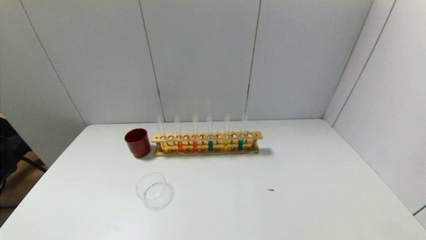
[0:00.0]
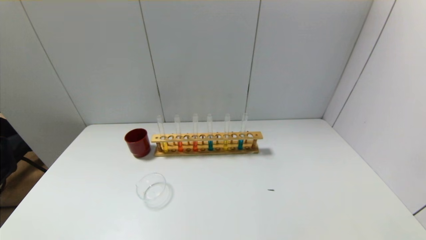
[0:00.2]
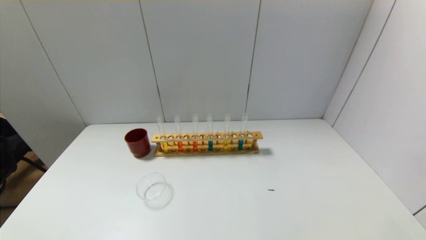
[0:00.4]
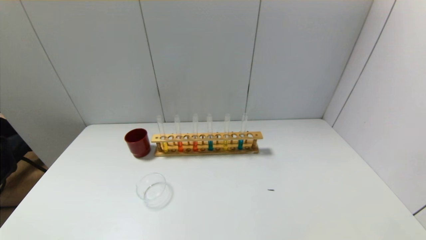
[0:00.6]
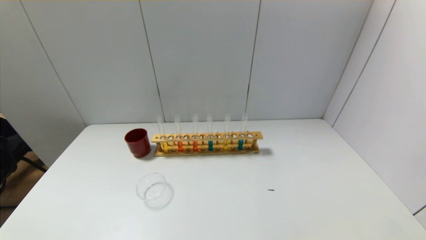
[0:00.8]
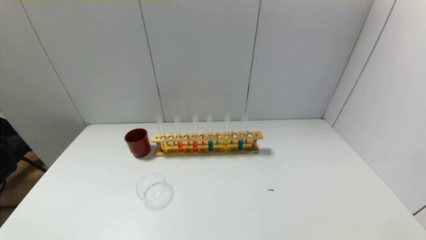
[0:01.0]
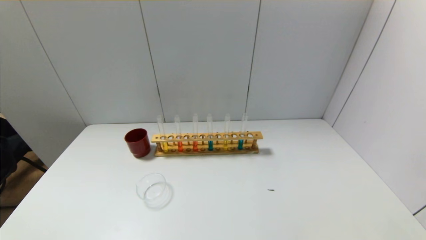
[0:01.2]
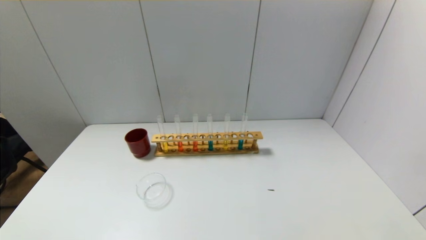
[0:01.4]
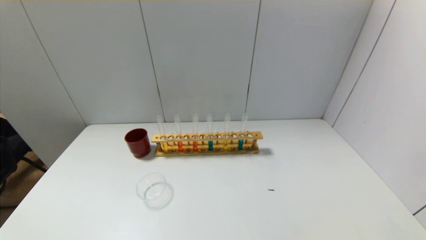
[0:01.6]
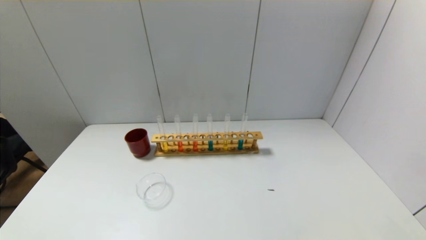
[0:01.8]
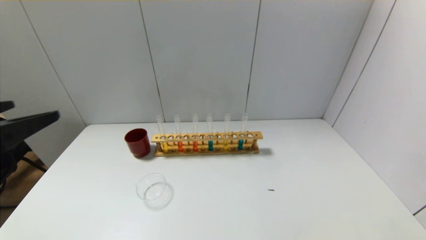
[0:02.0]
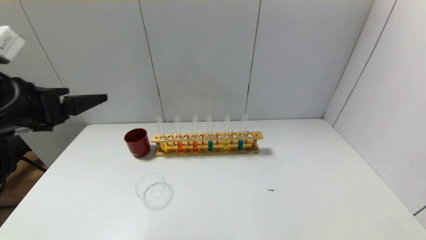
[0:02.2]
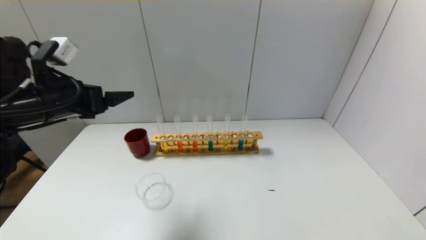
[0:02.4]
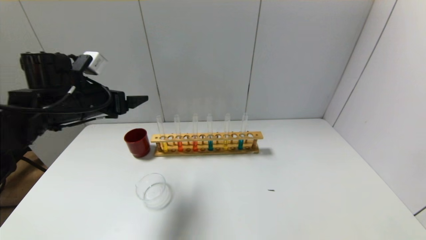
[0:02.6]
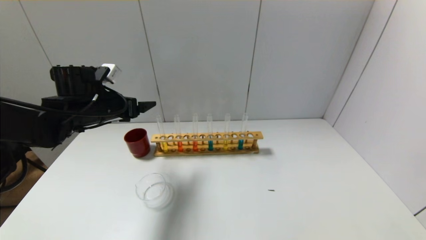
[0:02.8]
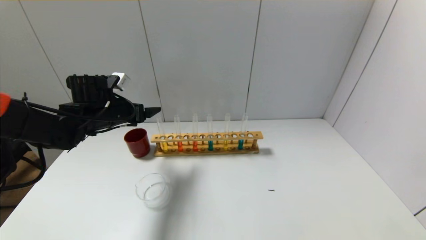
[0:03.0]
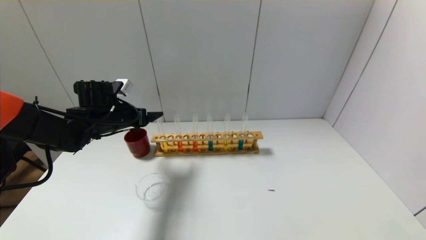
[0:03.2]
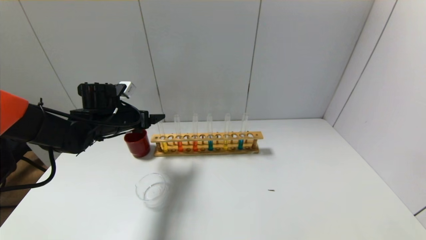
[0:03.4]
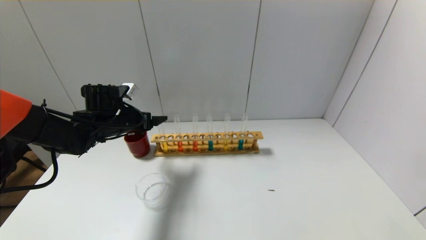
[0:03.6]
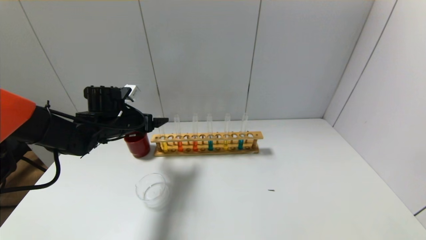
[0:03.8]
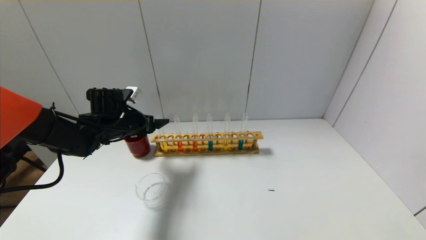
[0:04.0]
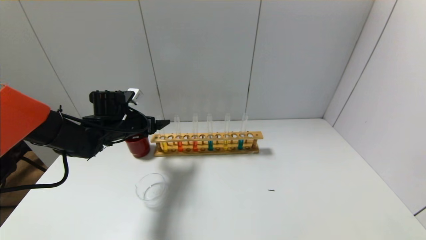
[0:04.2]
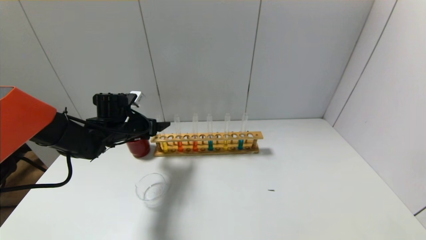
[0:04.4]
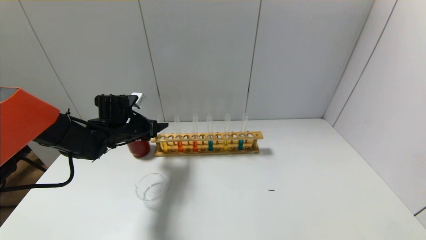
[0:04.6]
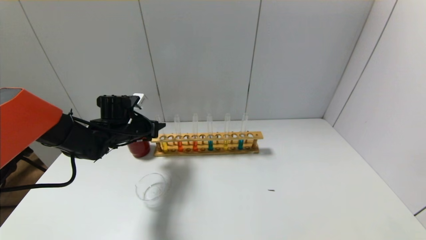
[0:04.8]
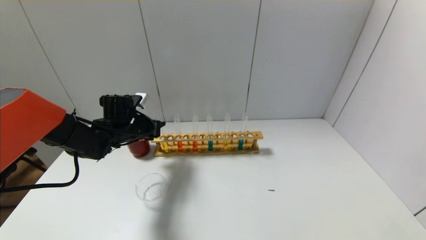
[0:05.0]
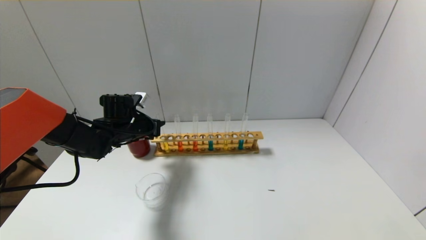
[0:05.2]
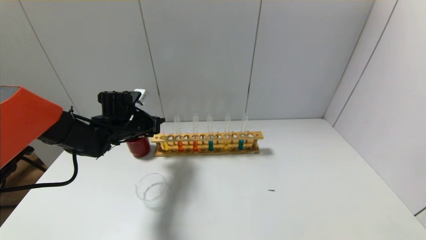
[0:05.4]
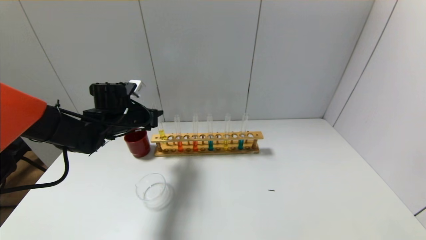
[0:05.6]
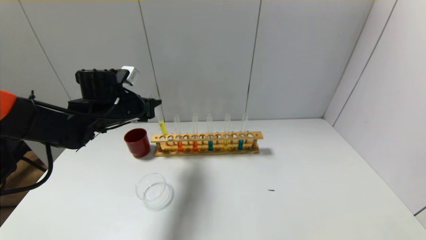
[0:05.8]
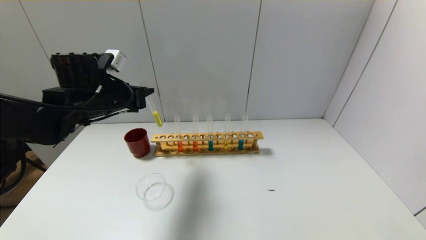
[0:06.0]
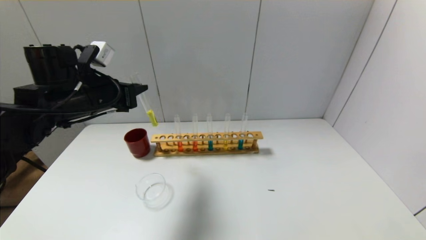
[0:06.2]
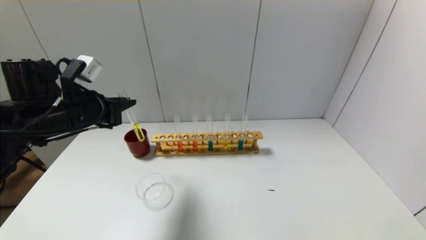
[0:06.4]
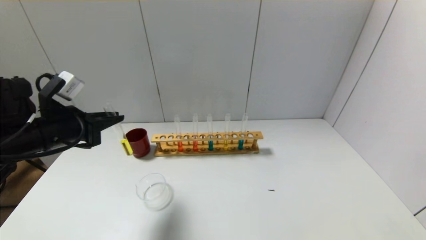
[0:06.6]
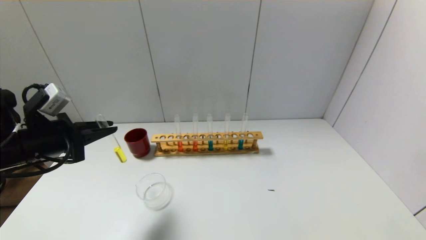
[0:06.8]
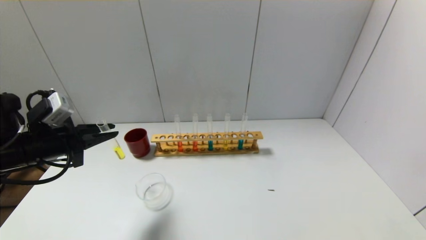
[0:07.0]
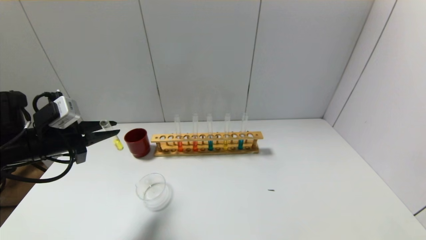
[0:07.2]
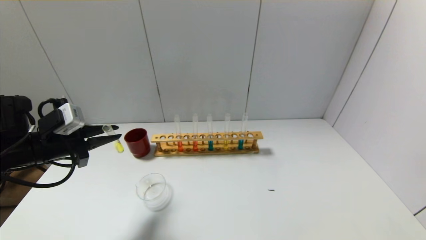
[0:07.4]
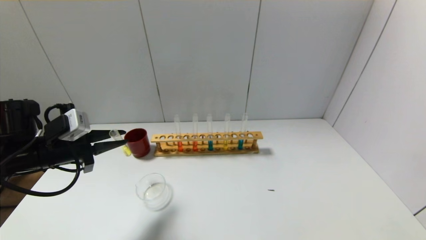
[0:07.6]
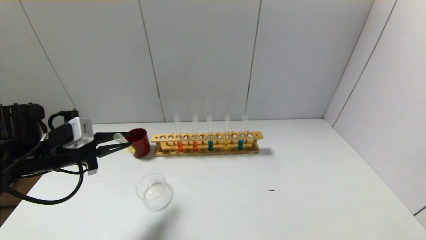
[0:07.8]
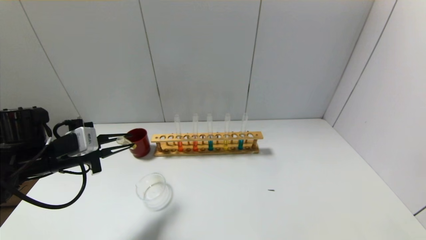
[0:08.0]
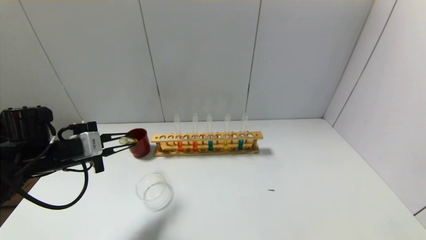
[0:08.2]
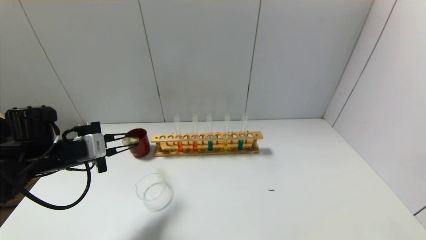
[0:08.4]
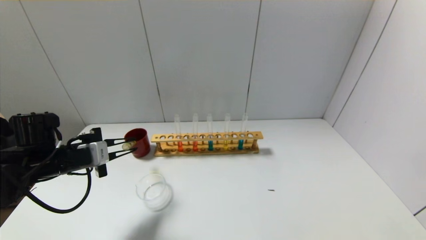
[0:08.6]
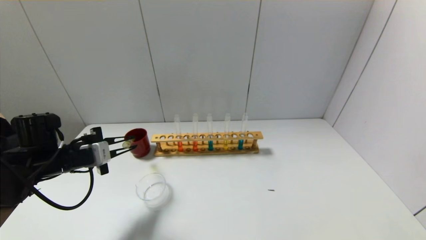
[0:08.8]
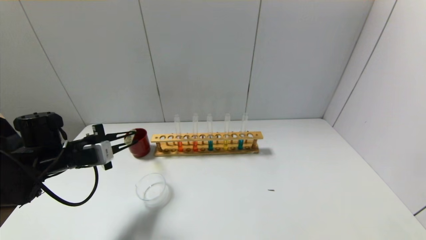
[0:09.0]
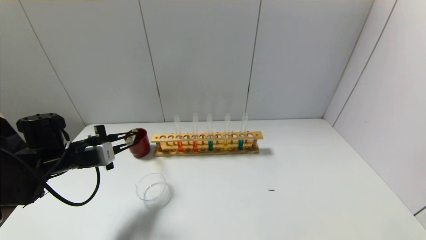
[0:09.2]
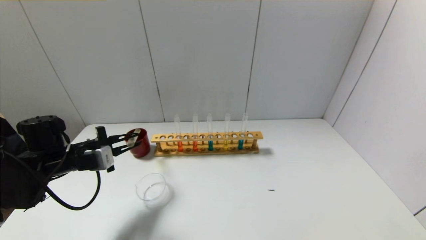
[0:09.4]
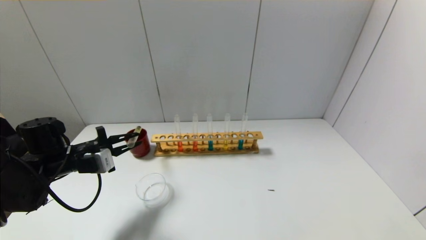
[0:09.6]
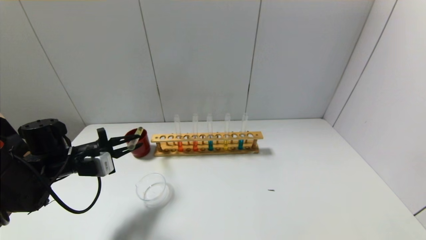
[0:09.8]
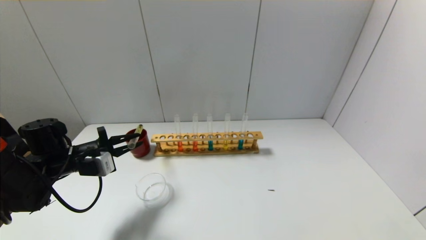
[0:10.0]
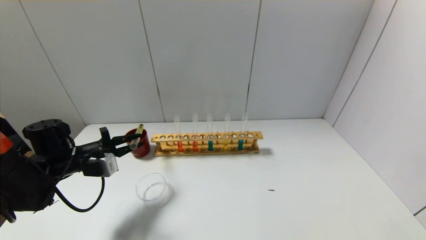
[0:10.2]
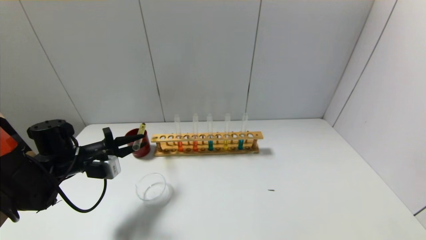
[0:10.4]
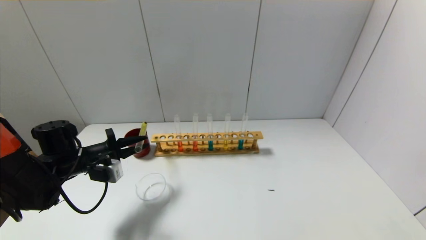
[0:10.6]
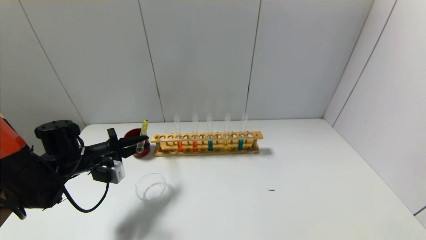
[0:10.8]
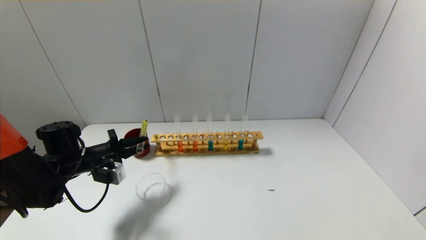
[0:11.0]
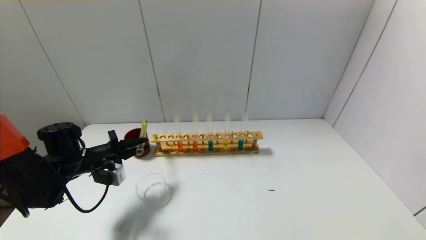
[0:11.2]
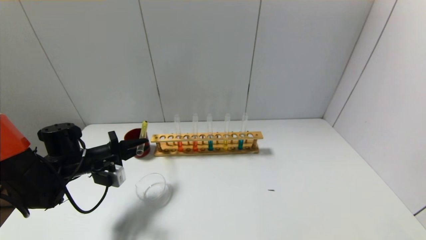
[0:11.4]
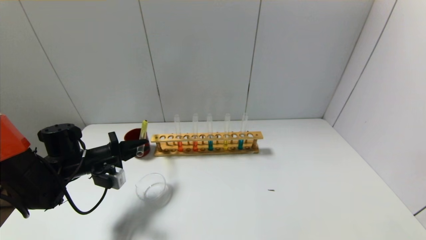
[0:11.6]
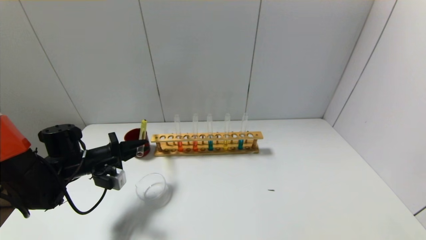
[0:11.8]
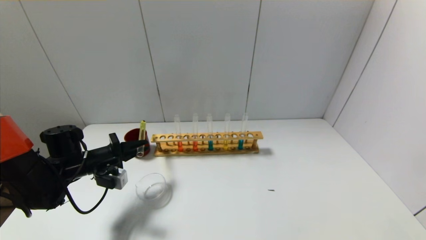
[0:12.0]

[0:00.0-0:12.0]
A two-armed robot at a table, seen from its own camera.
Step, 0:00.0 to 0:05.0: Grasp the yellow reagent with the left gripper.
0:01.6 to 0:03.0: The left gripper travels forward by some 40 cm.
0:03.0 to 0:04.4: The left gripper shifts by roughly 5 cm.
0:04.4 to 0:06.0: The left gripper travels upward and backward by about 10 cm, and closes up.
0:06.0 to 0:07.6: The left gripper goes approximately 15 cm to the left, backward and downward.
0:07.6 to 0:09.0: The left gripper changes place by roughly 5 cm.
0:09.0 to 0:10.4: The grippers move only a little.
0:10.4 to 0:12.0: There are only small adjustments of the grippers.

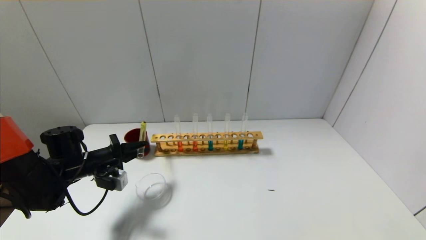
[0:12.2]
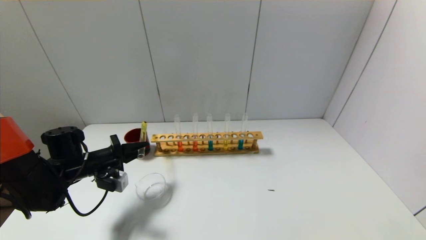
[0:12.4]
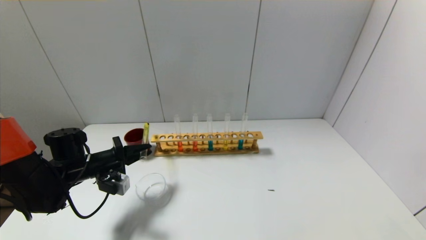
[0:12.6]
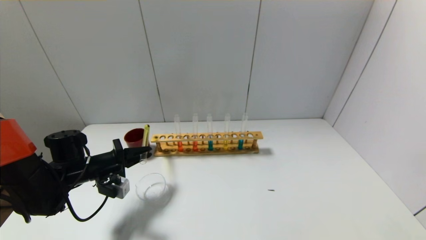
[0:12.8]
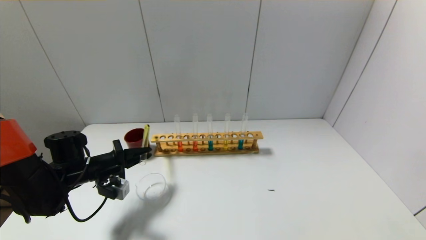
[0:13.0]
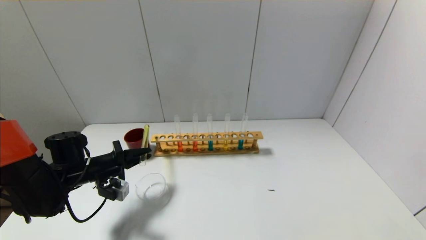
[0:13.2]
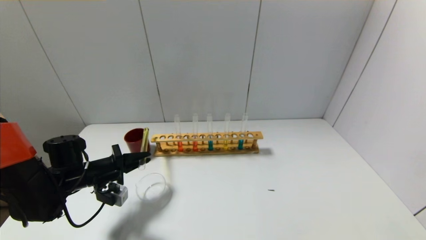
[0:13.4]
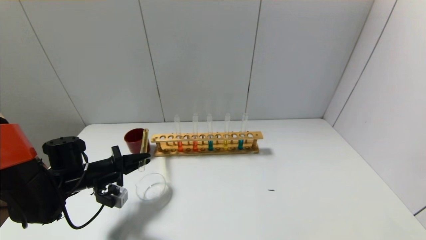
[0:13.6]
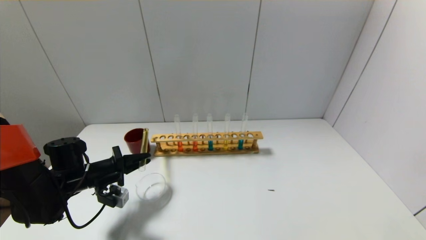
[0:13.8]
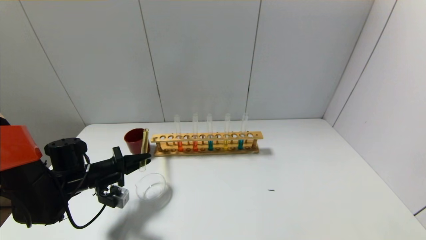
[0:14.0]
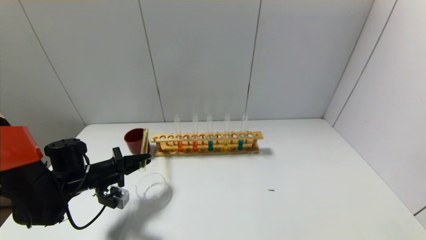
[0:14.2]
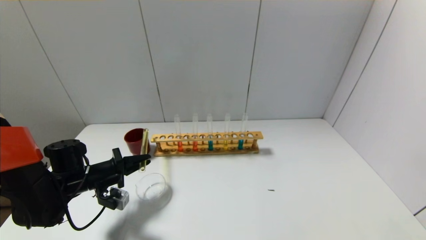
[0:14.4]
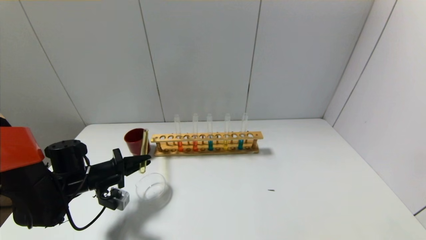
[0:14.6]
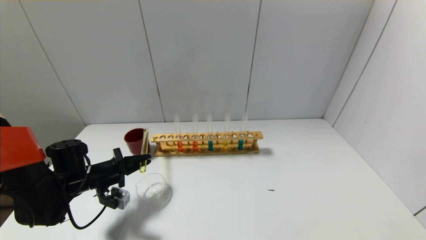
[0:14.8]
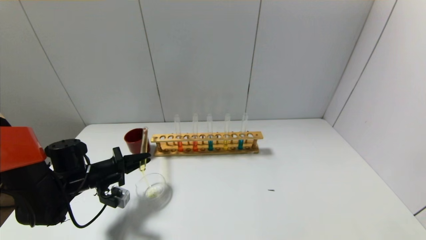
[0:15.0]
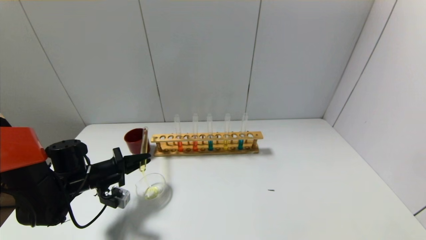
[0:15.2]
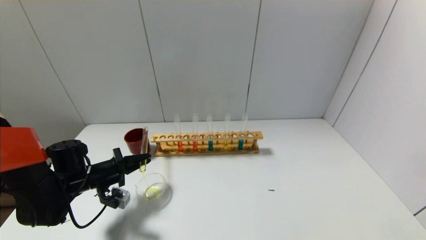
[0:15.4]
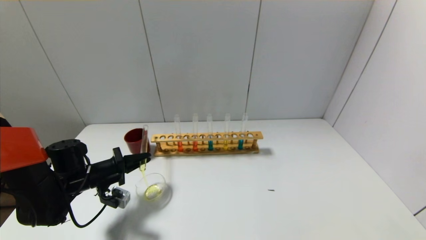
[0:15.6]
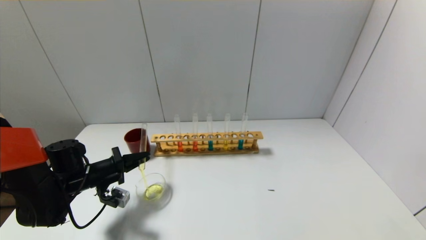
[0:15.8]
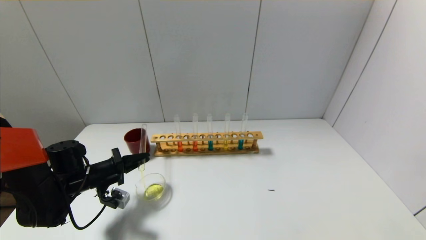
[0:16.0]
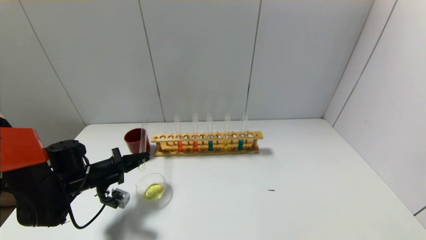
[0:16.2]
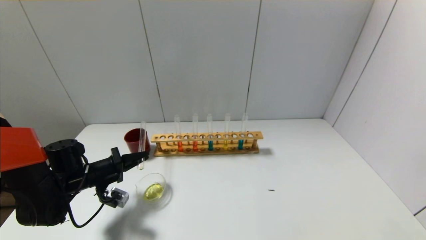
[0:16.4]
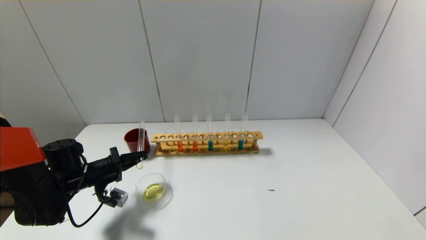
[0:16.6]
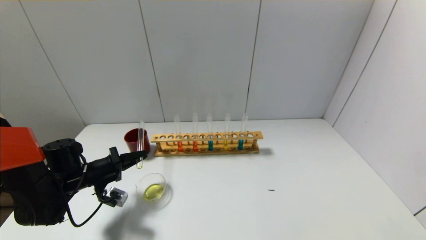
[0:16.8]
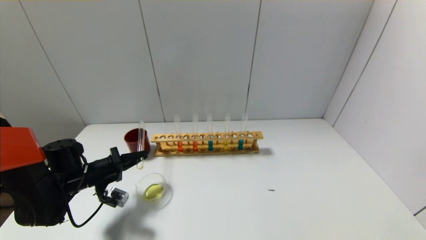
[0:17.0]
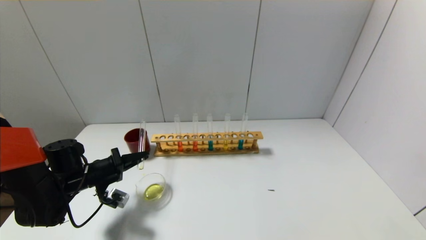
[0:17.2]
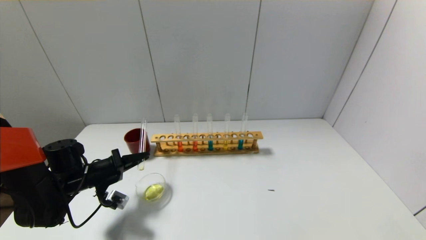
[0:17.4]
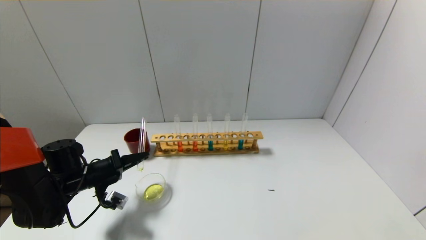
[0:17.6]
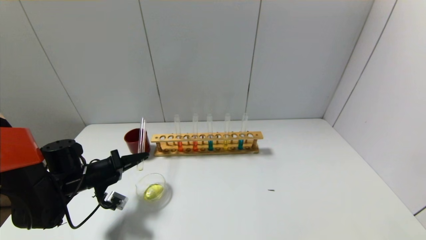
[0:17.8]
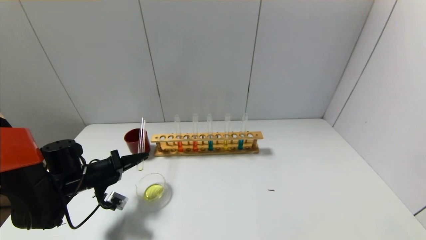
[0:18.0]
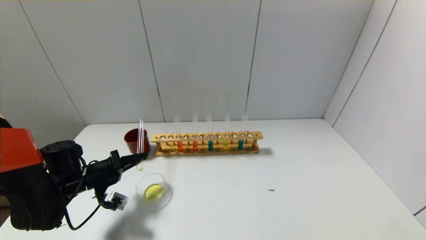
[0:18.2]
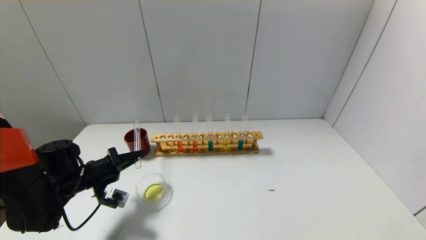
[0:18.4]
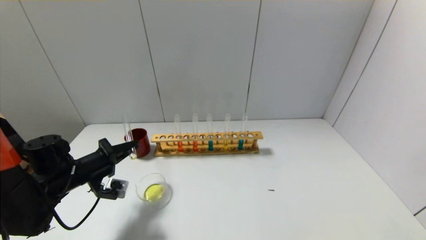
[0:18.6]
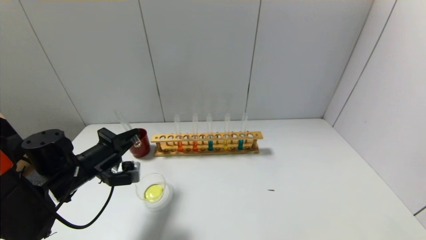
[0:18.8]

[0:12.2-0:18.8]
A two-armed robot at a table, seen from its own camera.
Step, 0:12.2 to 0:18.6: Pour the yellow reagent into the graduated cylinder with the left gripper.
0:12.2 to 0:13.8: The grippers stay close to where they were, moving slightly.
0:13.8 to 0:15.4: The two grippers keep their place.
0:15.4 to 0:17.2: The grippers move only a little.
0:17.2 to 0:18.8: The left gripper heads upward, covering roughly 5 cm.
